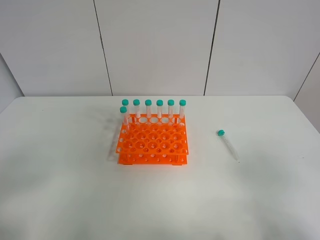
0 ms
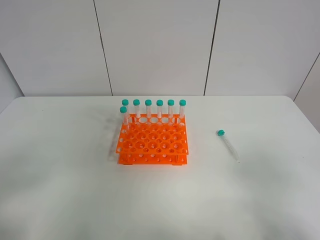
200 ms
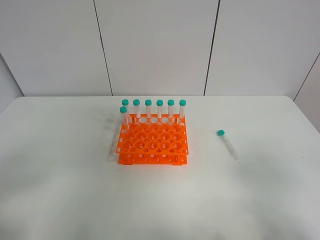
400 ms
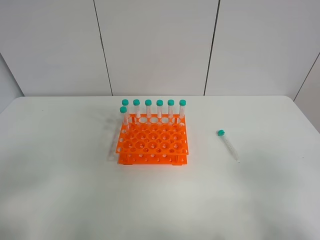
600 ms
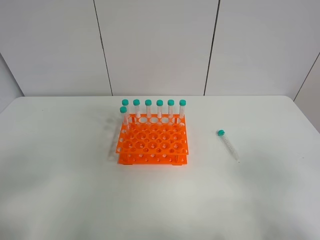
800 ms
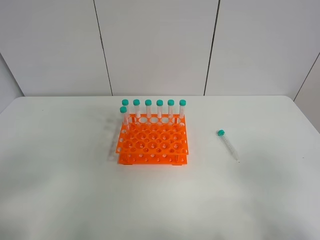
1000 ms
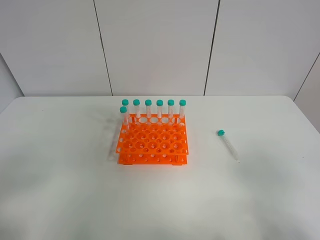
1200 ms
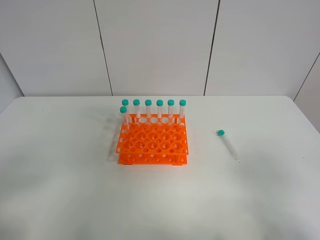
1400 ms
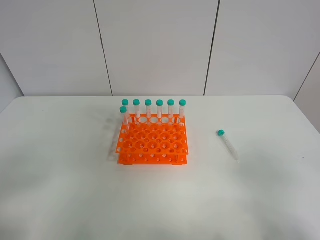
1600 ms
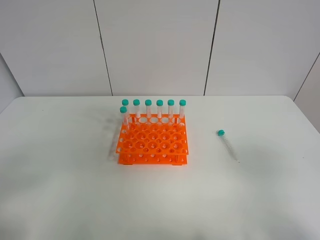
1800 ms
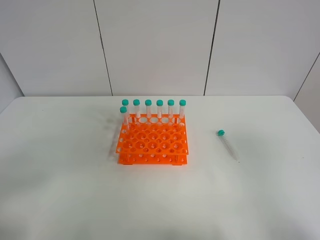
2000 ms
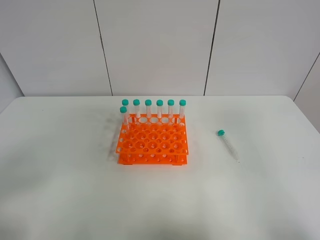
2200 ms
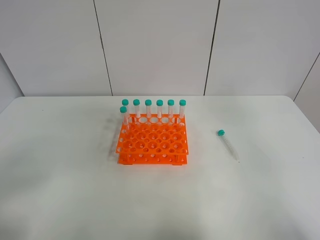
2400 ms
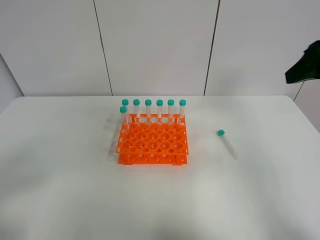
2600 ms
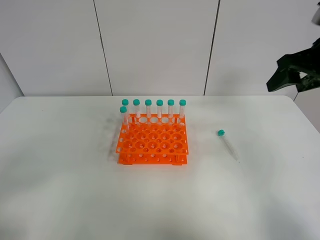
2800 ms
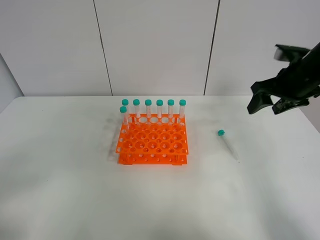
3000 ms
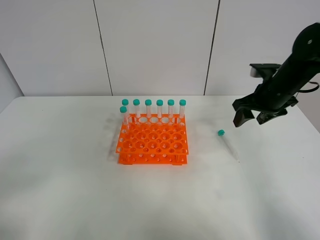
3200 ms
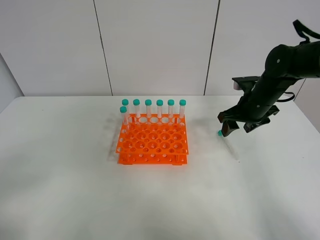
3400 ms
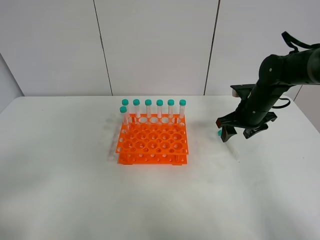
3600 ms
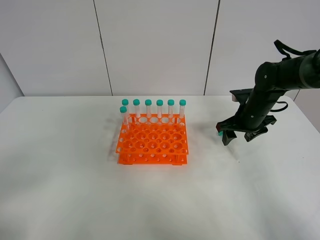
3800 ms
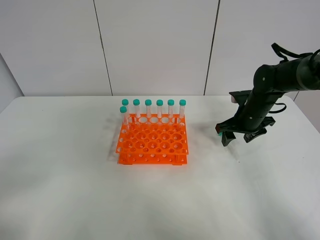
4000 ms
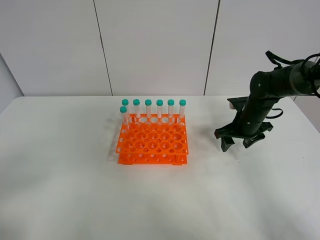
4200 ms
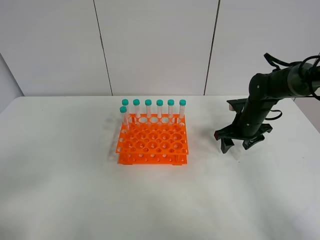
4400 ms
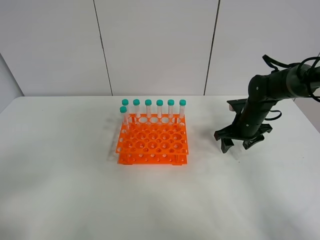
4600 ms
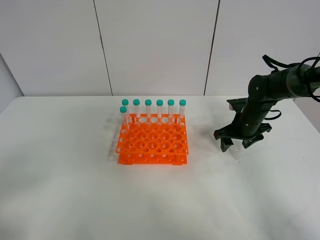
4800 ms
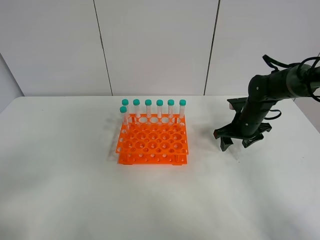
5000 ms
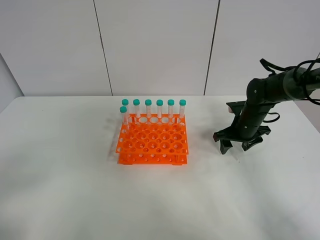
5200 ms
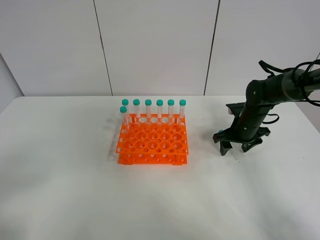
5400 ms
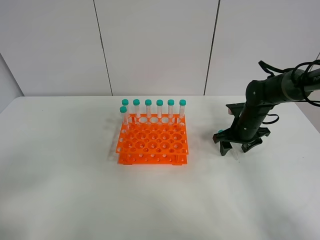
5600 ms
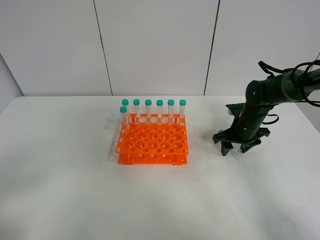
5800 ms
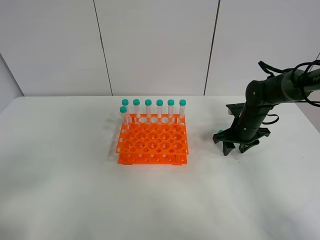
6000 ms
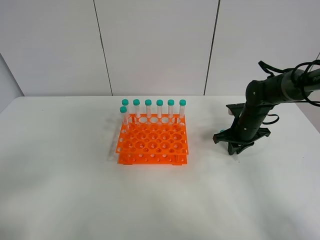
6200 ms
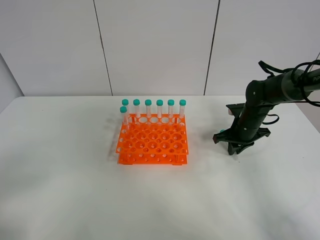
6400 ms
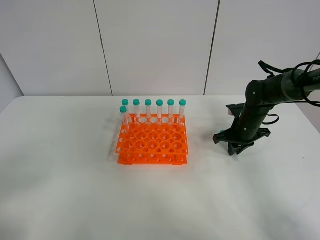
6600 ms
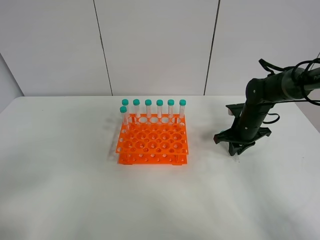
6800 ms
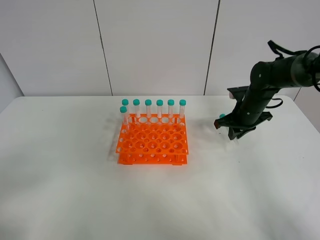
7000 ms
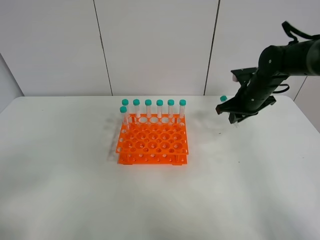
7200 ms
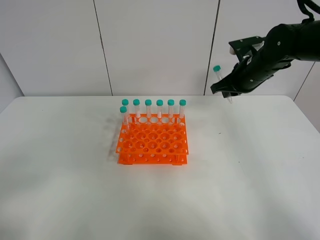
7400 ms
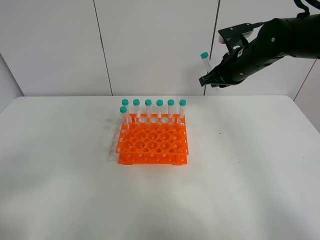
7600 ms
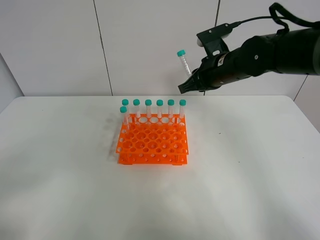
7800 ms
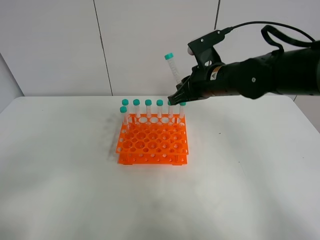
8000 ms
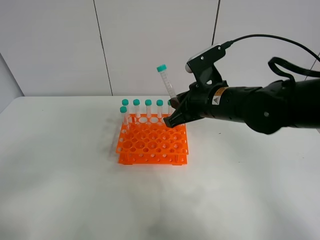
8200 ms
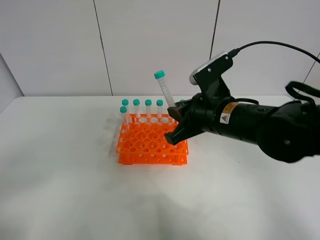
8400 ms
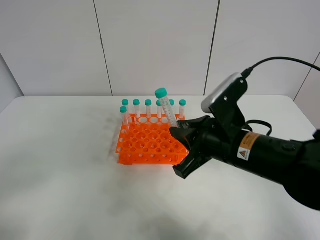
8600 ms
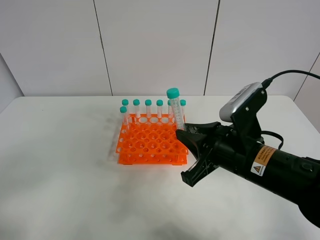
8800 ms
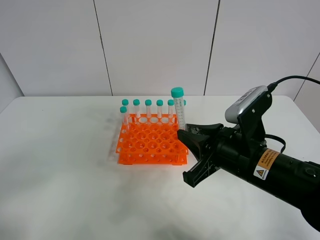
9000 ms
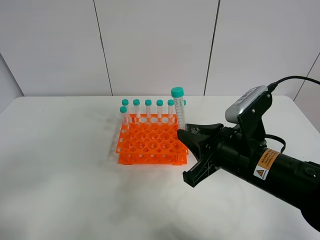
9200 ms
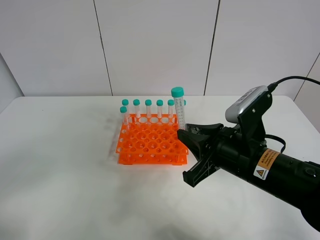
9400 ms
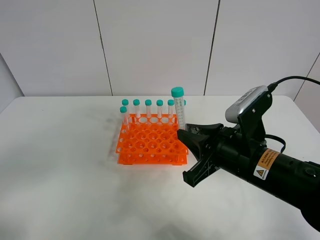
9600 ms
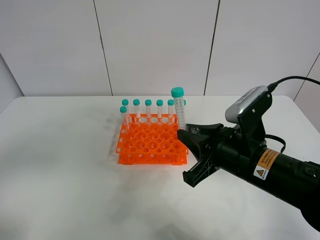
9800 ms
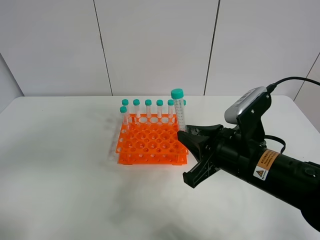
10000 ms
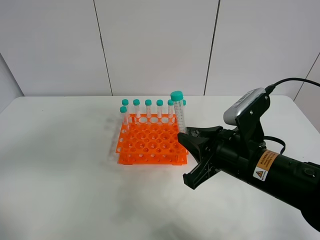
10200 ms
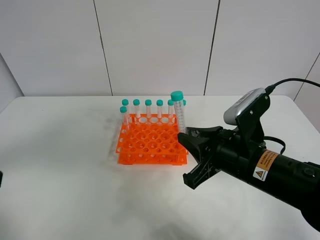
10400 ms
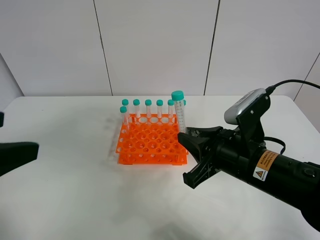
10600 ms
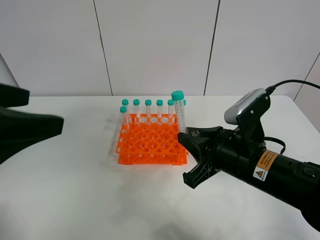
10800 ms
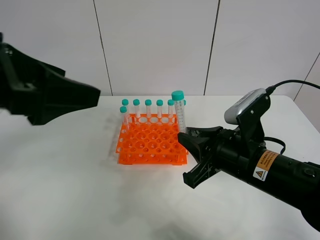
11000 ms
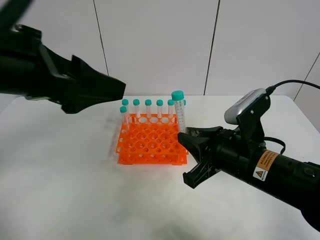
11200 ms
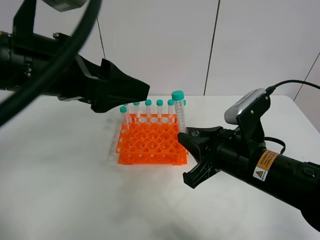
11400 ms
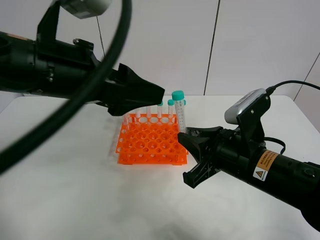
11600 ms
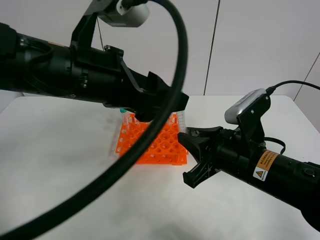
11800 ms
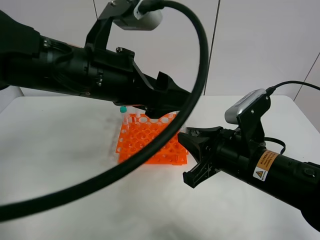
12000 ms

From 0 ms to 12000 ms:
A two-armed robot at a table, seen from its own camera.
Task of the whole recording: Put the test tube on the table back onto the test tube rack.
Step, from 0 ms to 6200 ms: Pick up the test tube with the right gripper.
From 0 ms to 1600 ms: Both grippers stay put.
From 1600 ms to 3000 ms: The right gripper moves forward, approximately 35 cm.
From 3000 ms to 4400 ms: The right gripper goes approximately 15 cm downward.
From 4400 ms to 6000 ms: The right gripper closes.
From 6000 ms to 7600 ms: The right gripper heads upward, covering about 15 cm, and closes up.
From 7600 ms to 9000 ms: The right gripper shifts approximately 20 cm backward.
From 9000 ms to 10400 ms: The left gripper travels forward by about 10 cm.
From 10400 ms to 12000 ms: The left gripper travels to the right and forward by some 25 cm.

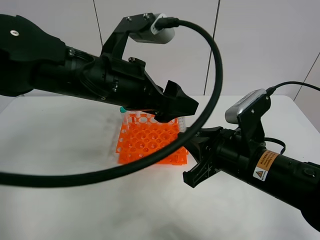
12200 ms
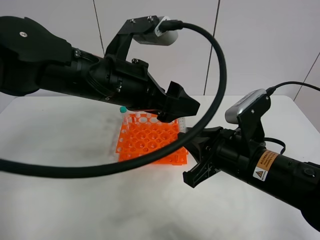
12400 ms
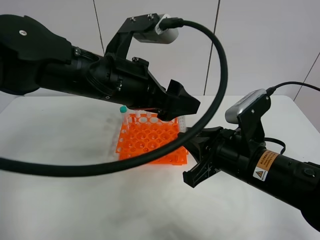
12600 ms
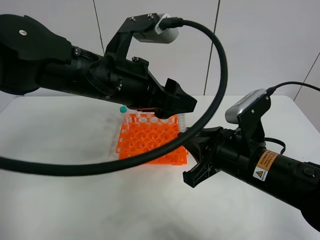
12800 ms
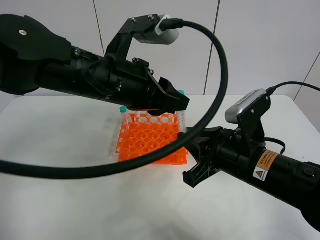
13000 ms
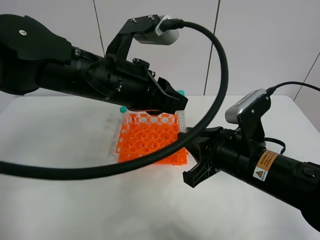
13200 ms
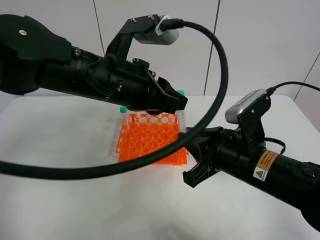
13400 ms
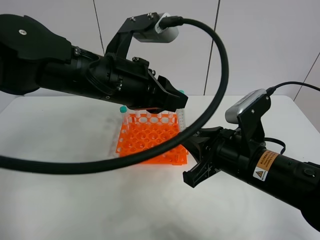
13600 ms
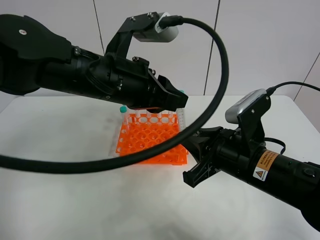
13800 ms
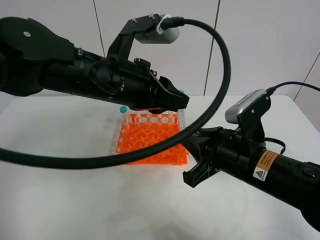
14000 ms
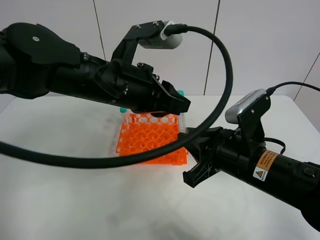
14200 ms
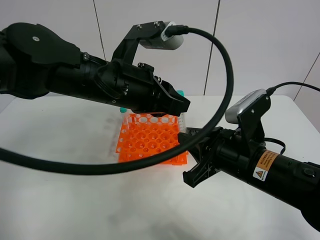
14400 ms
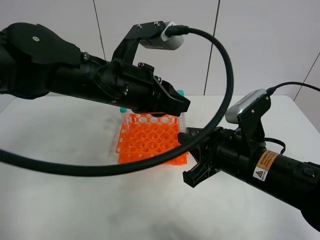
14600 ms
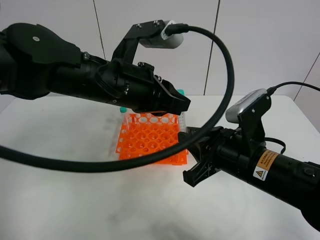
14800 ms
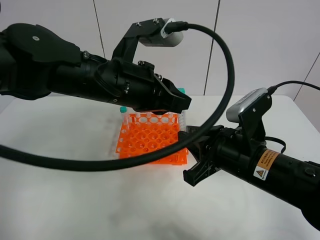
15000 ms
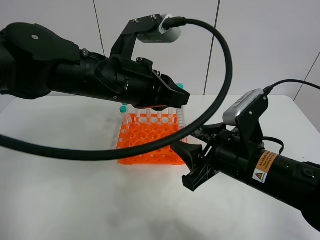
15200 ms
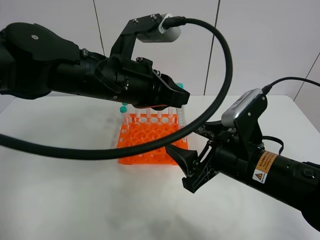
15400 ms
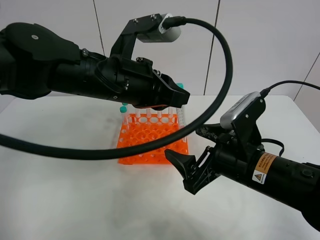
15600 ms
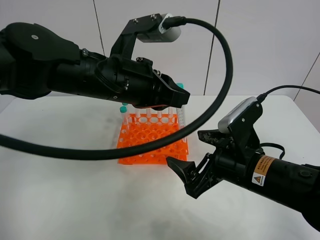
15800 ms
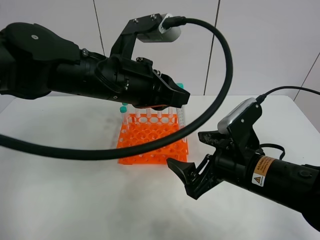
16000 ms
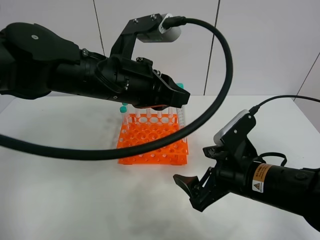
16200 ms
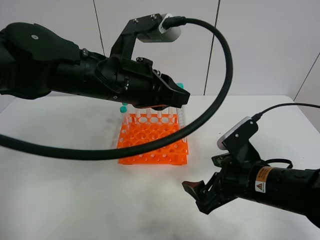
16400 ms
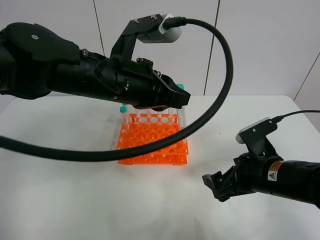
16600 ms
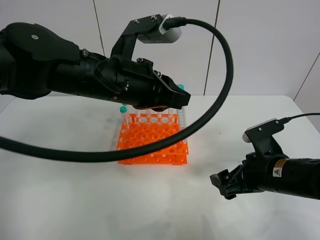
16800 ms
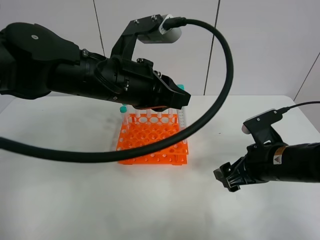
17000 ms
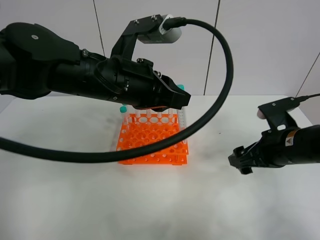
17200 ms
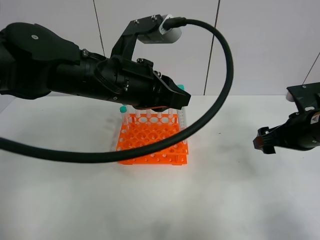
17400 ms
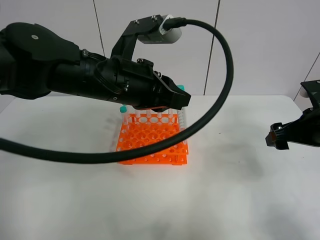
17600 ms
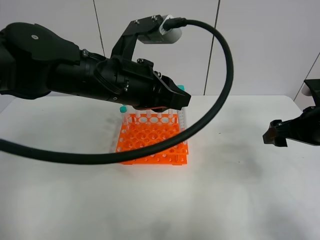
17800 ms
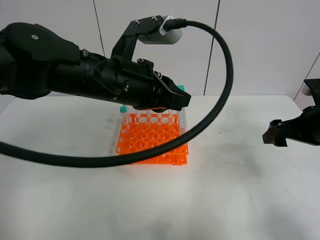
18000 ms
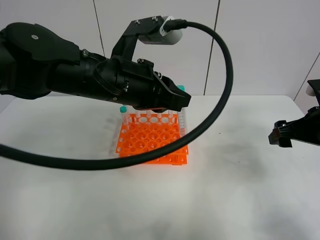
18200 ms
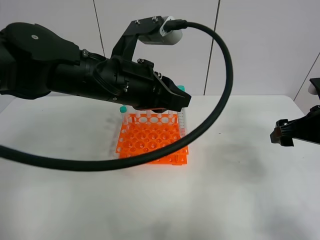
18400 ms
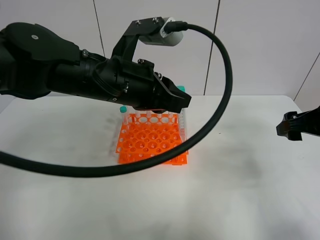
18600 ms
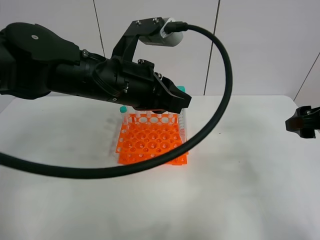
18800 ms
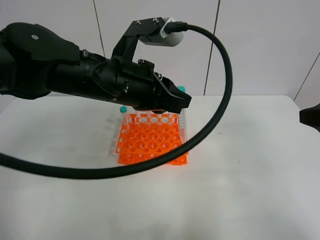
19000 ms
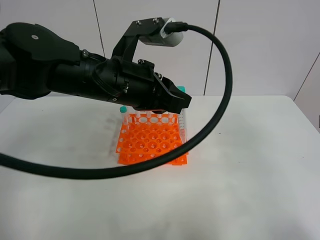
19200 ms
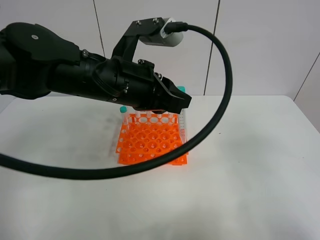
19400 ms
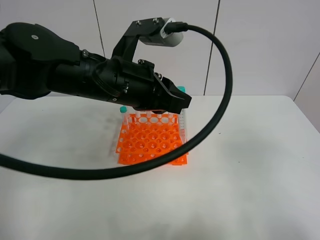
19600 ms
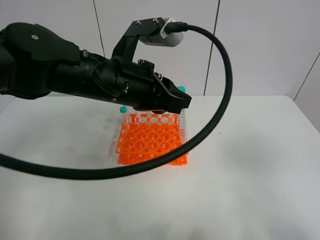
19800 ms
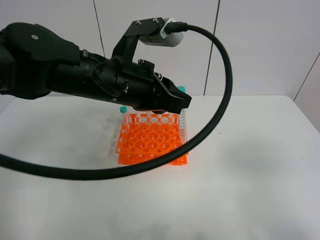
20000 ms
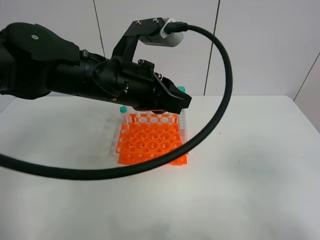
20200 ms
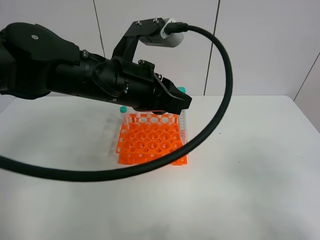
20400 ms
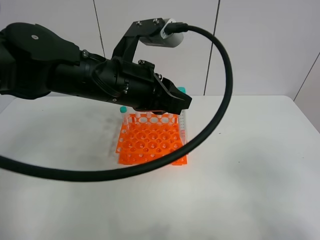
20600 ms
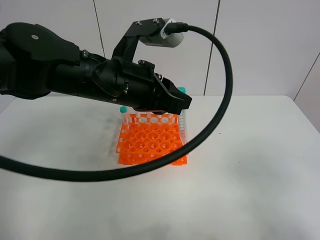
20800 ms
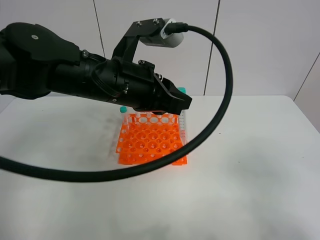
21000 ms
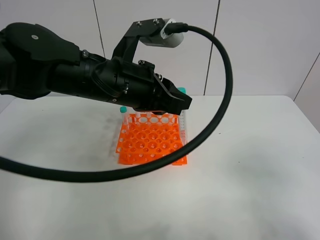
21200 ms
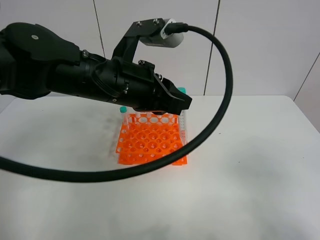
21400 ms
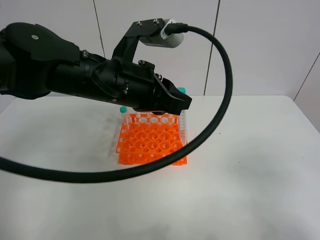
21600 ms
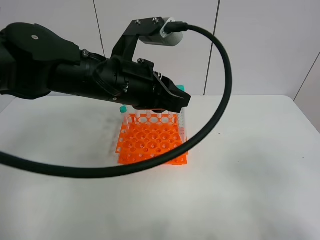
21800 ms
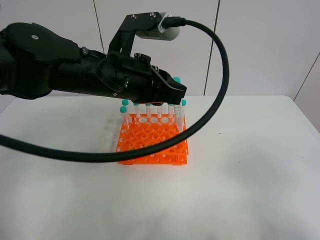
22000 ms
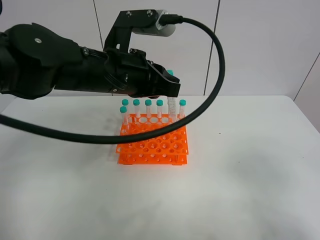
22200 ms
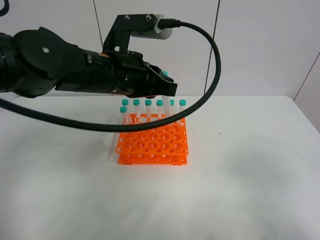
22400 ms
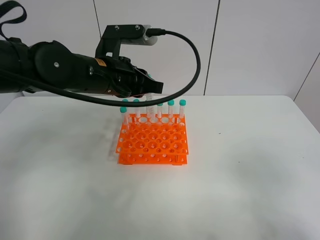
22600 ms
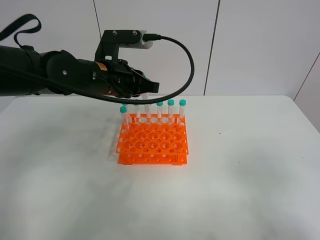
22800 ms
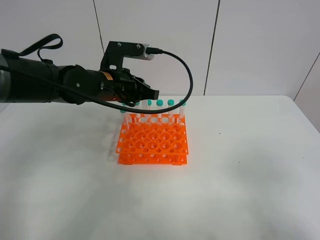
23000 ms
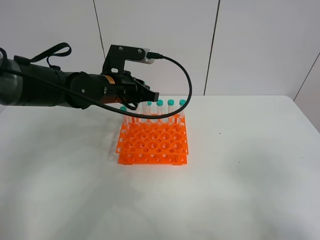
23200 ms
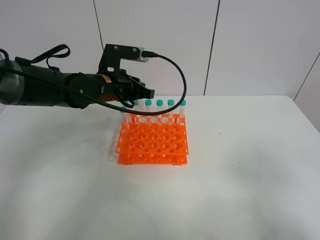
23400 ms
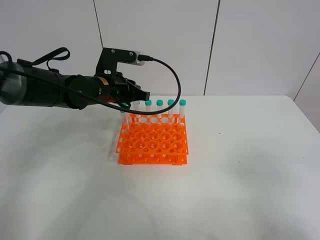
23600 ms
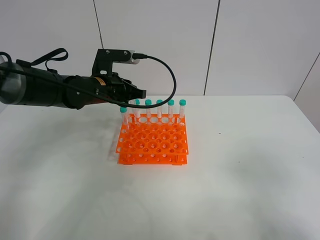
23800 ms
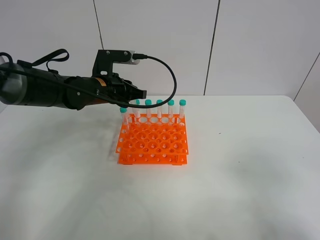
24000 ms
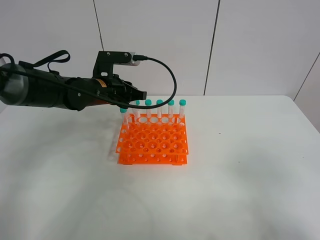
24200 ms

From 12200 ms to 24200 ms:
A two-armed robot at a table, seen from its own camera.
Task of the whole recording: Put the test tube on the table back onto the test tube rack.
Step, from 12200 ms to 15200 ms: Move the test tube from the right gripper to the left gripper.
From 12200 ms to 13800 ms: The left gripper closes its fingers.
From 13800 ms to 15200 ms: The right gripper opens up.
From 15200 ms to 16600 ms: The right gripper goes approximately 5 cm to the right, and opens up.
From 16600 ms to 18200 ms: The right gripper moves to the right, upward and forward, about 15 cm.
From 18200 ms to 19800 ms: The right gripper shifts some 25 cm backward and upward.
From 19800 ms to 21200 ms: The right gripper goes roughly 5 cm downward.
From 21200 ms to 22600 ms: The left gripper travels forward by roughly 5 cm.
From 22600 ms to 24200 ms: The left gripper shifts roughly 10 cm downward and forward.
